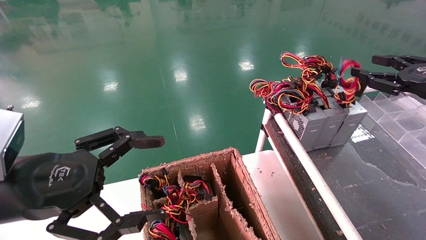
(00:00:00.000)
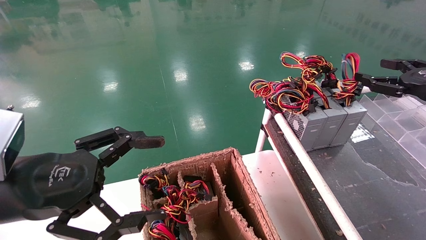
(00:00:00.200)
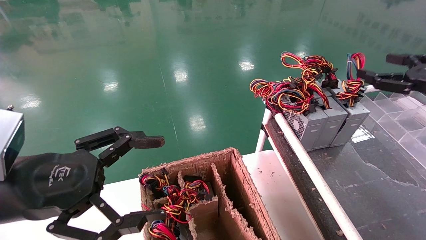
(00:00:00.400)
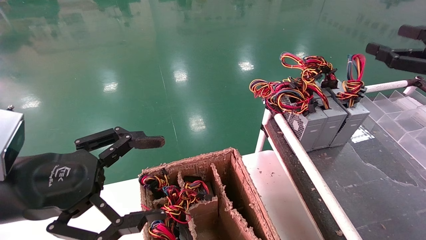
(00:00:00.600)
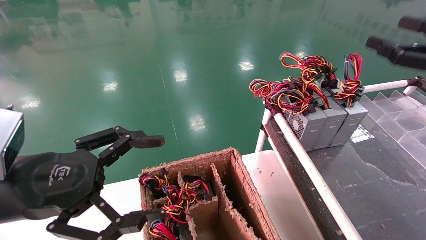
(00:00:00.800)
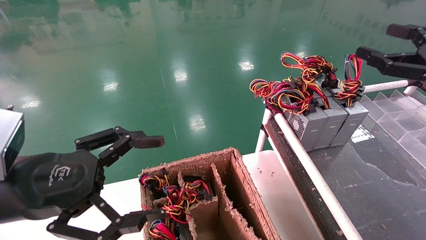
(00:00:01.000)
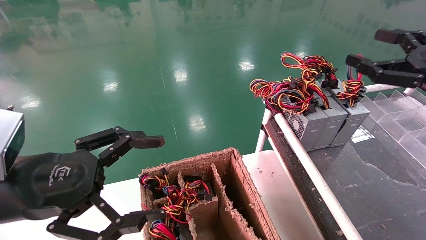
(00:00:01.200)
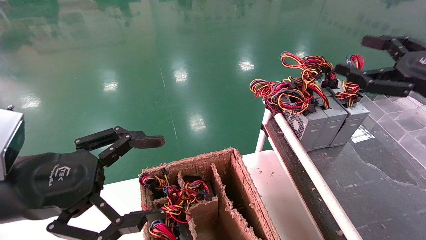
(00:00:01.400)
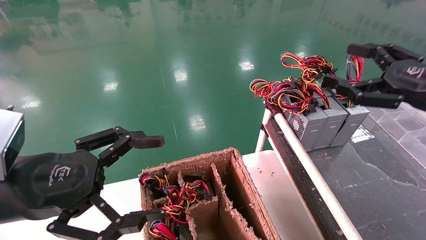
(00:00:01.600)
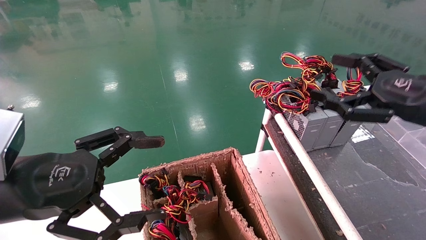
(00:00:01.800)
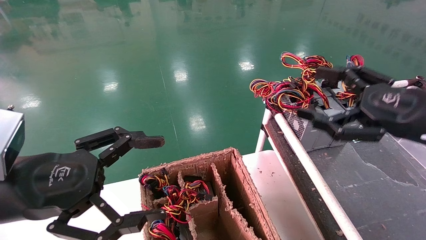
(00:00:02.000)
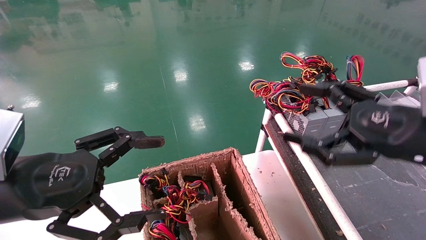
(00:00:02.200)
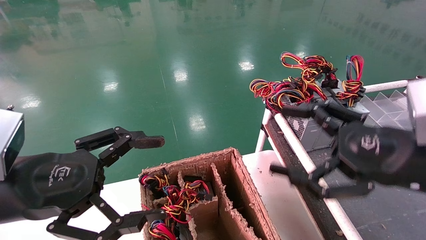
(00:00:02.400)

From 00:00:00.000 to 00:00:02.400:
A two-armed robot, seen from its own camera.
From 00:00:00.000 to 00:00:01.200: The right gripper shifts by about 5 cm, and opens.
From 00:00:01.200 to 00:00:02.400: The right gripper shifts approximately 15 cm to the left, backward and downward.
